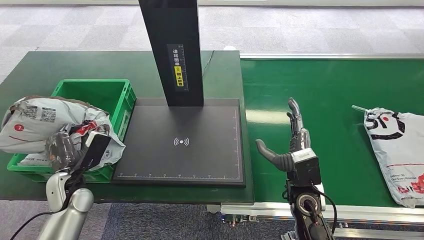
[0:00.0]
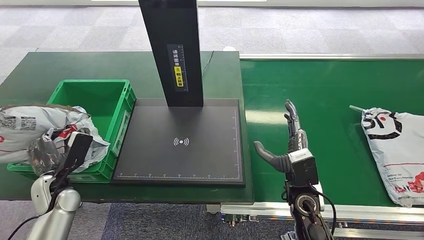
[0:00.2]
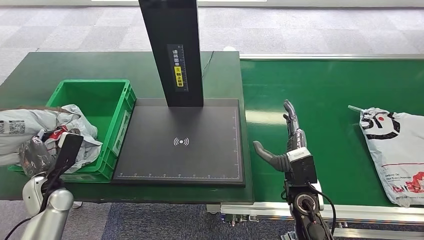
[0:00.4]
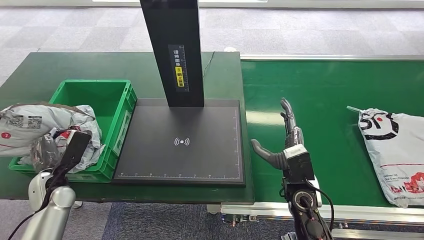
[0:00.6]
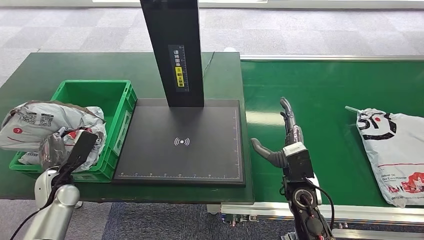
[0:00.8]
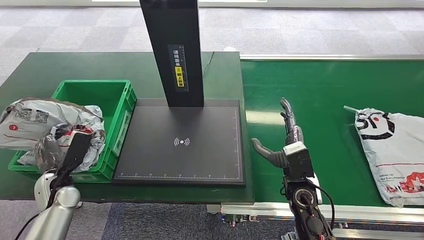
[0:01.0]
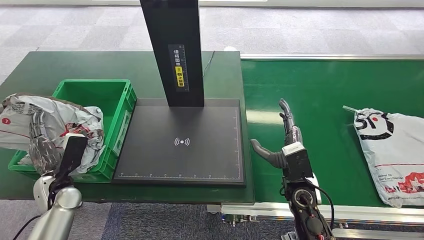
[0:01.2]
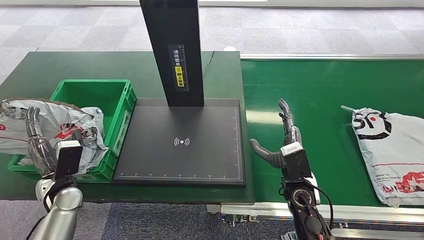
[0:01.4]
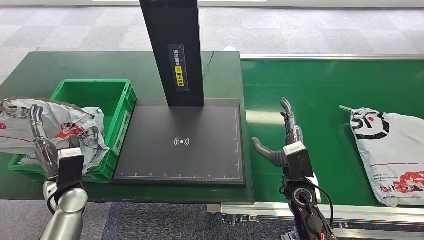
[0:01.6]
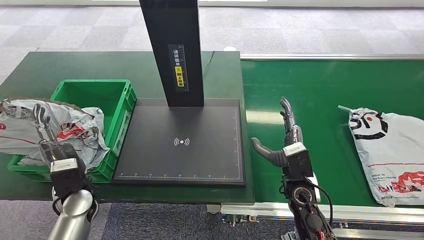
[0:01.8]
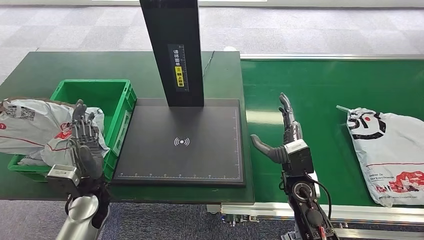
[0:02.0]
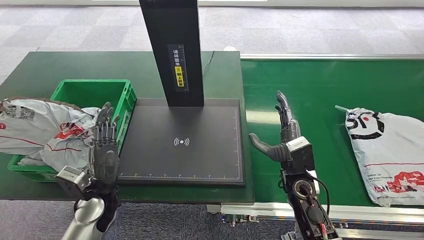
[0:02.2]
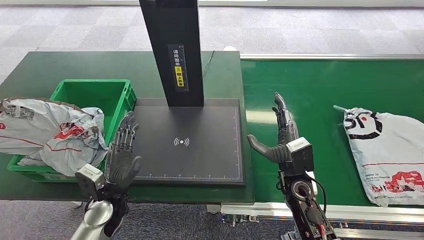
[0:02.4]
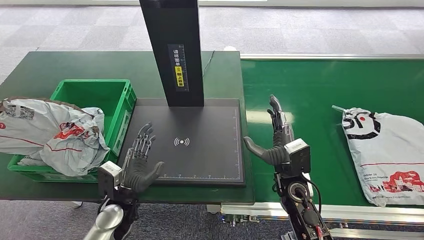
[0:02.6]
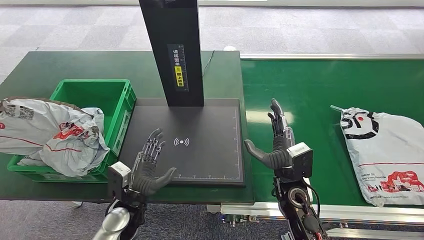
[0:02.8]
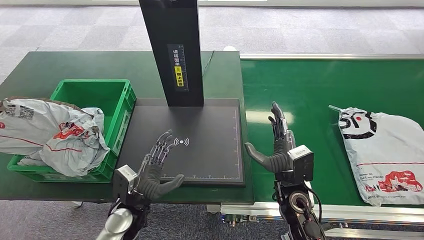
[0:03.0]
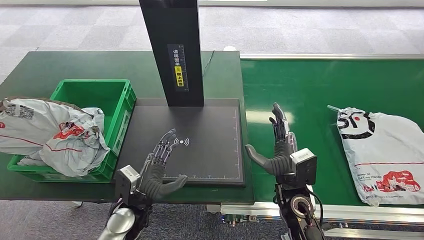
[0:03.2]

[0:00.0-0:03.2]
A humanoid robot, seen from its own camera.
Step, 0:03.0 to 0:03.2: Place the package into the parcel locker.
0:01.6 to 0:03.2: The left hand moves to the right, about 15 cm.
